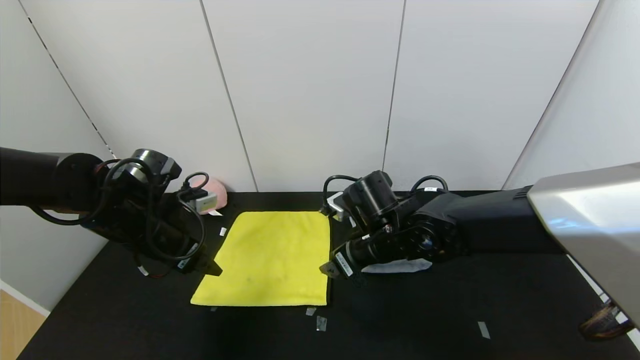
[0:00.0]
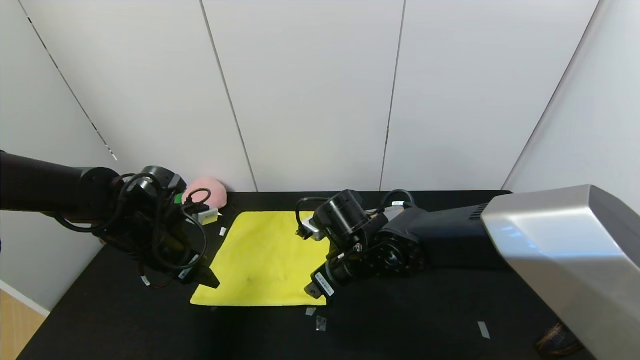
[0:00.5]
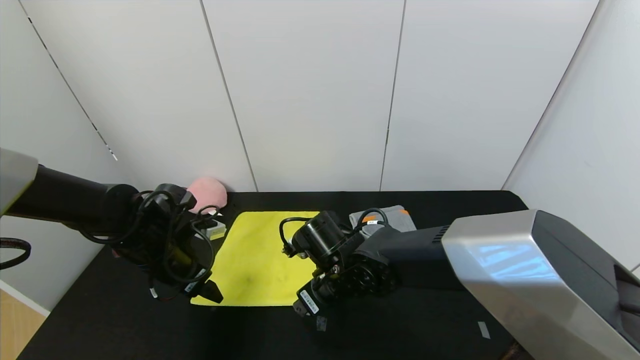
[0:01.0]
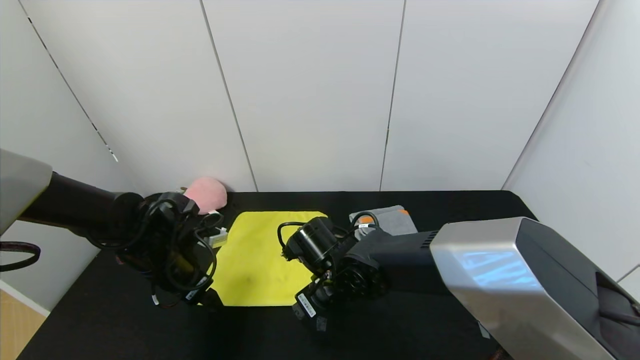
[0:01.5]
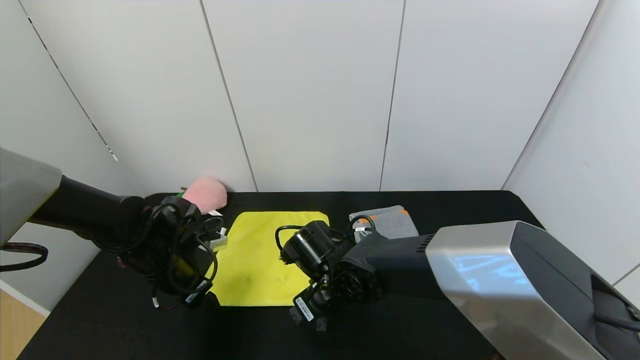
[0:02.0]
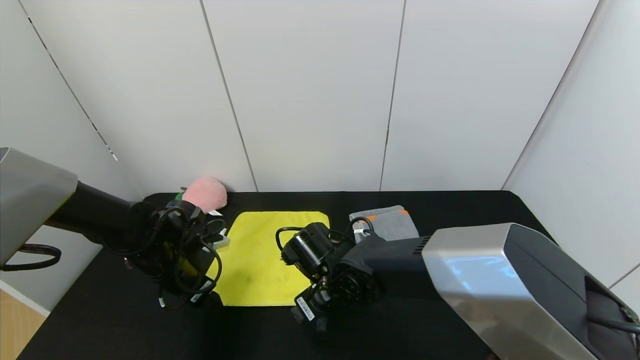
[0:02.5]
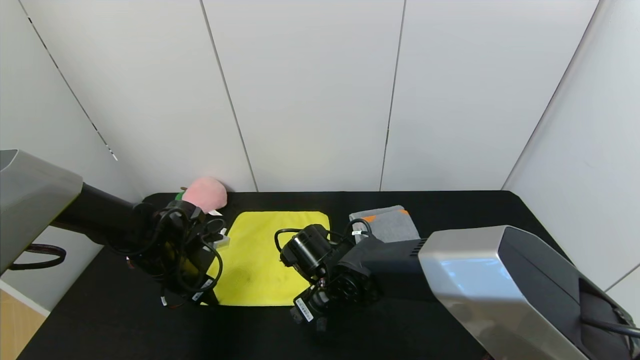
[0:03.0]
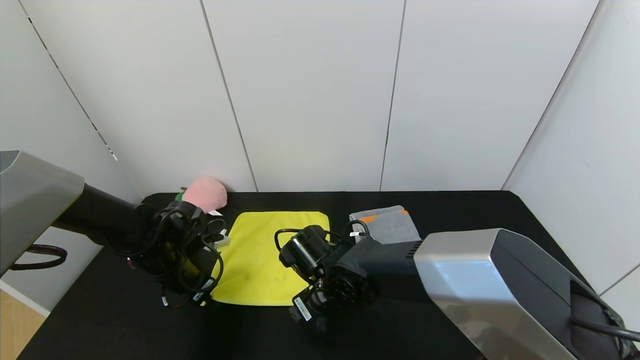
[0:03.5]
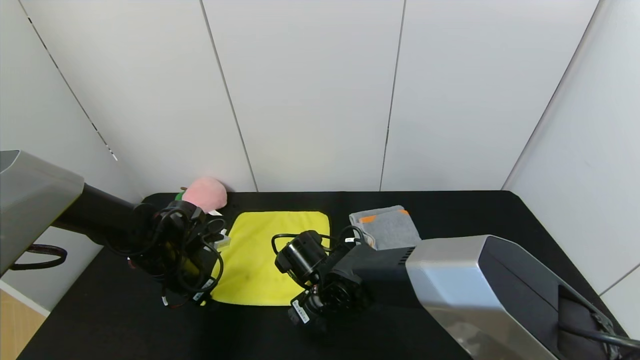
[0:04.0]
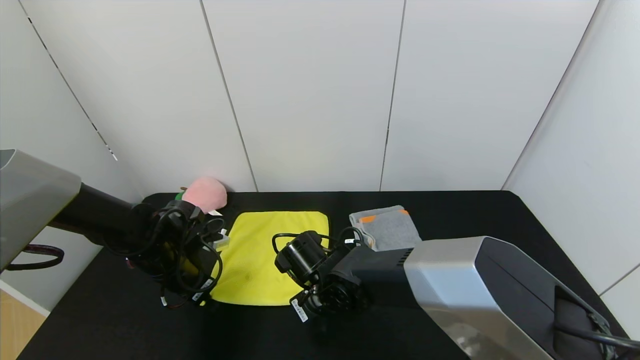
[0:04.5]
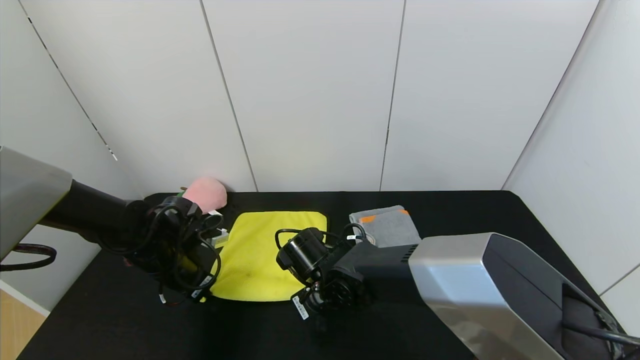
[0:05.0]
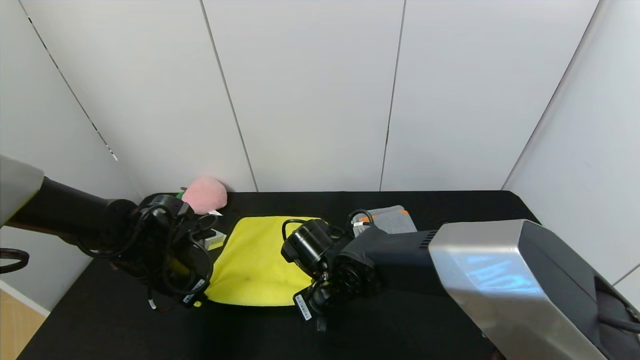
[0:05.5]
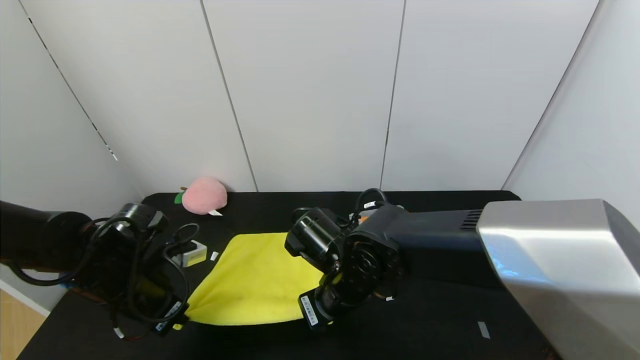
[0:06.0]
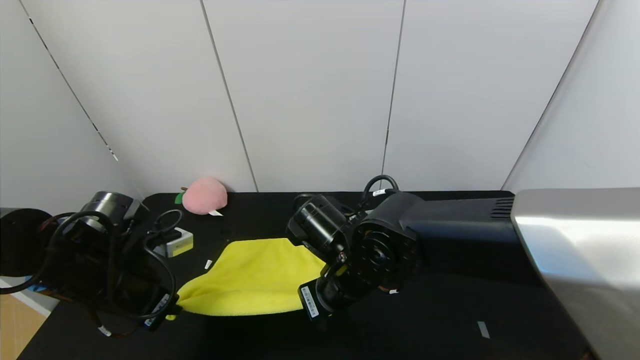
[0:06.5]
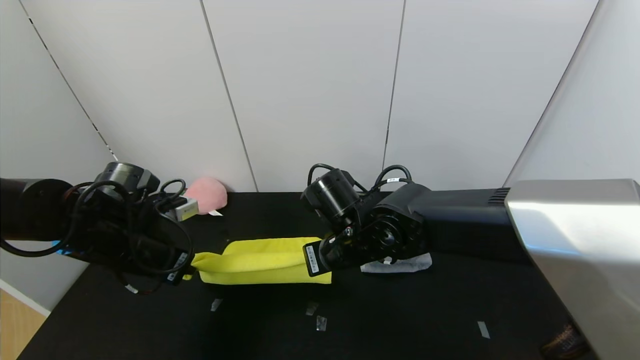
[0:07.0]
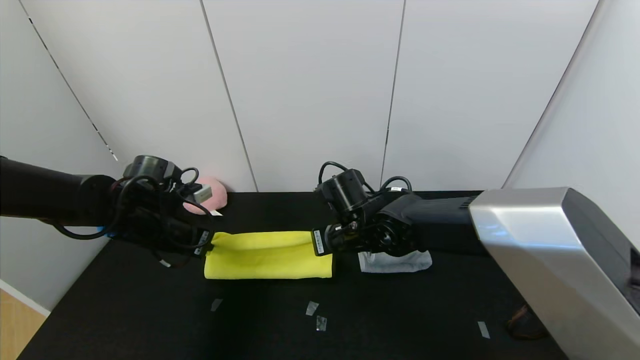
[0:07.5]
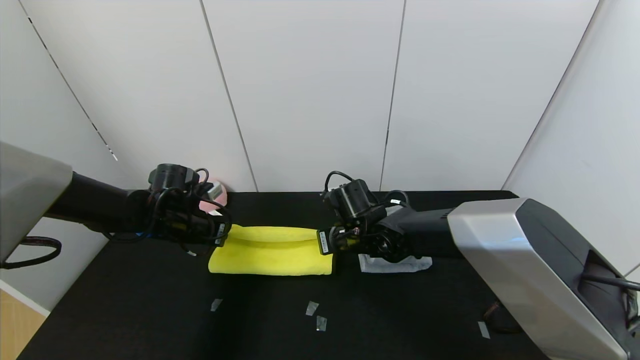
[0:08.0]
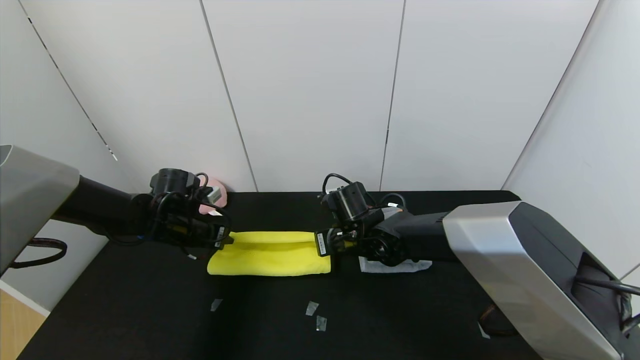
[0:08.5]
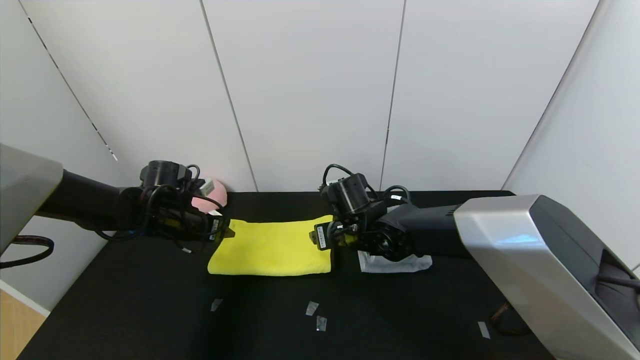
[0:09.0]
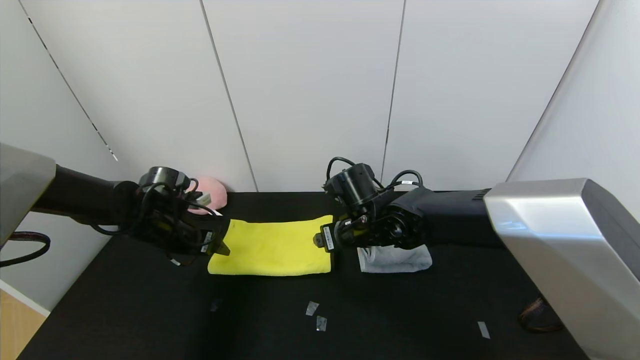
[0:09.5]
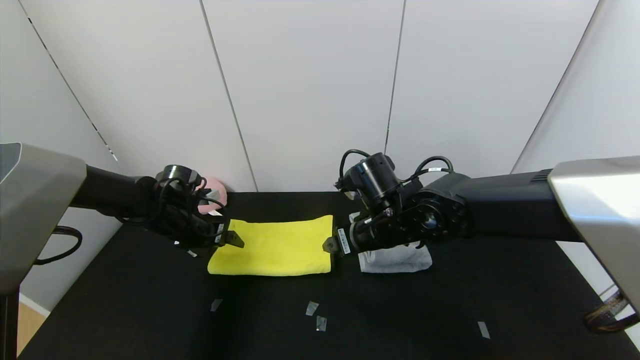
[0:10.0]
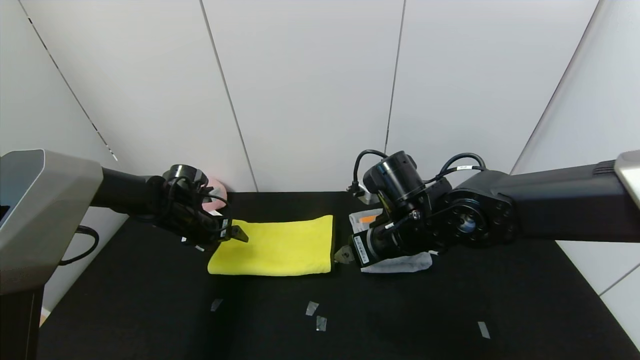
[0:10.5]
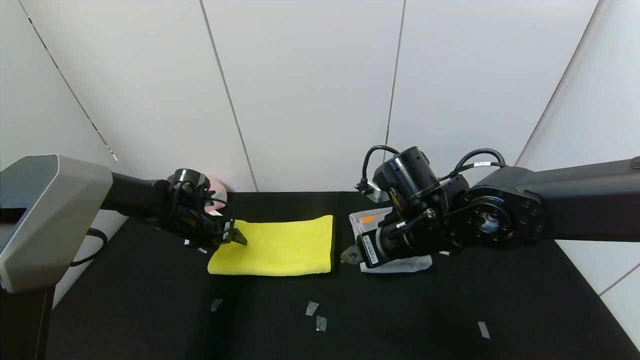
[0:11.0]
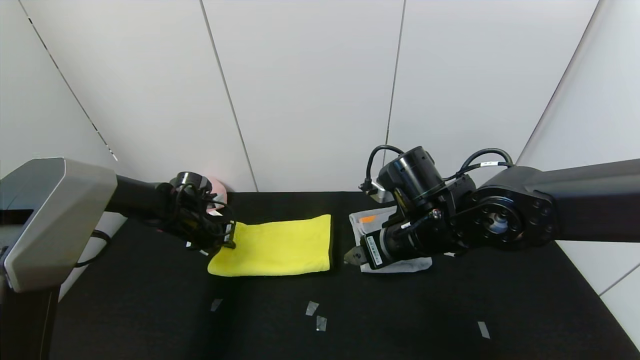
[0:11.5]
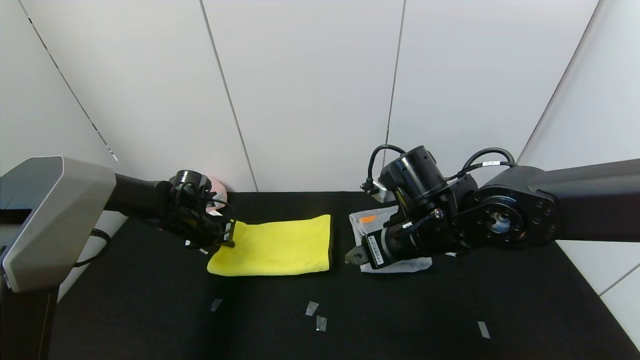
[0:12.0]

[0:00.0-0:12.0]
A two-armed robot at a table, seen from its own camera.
Task of the whole recording: Use the gripper to fold the yellow towel and grey towel in half twice,then put the yellow towel on the grey towel.
Step, 0:00.0 to 0:08.5: Fold the yellow towel upwards with the left gripper.
0:00.0 to 0:02.0: The right gripper moves to the left and downward, approximately 10 cm. Meanwhile the left gripper travels downward by about 10 cm.
0:02.0 to 0:04.0: The left gripper closes its fingers.
0:04.0 to 0:06.0: The right gripper travels upward by approximately 5 cm, and closes, while the left gripper goes about 10 cm backward.
0:06.0 to 0:08.0: The two grippers go approximately 15 cm forward.
0:08.0 to 0:10.0: The left gripper opens its fingers, while the right gripper goes approximately 10 cm upward and backward, and opens its fingers.
0:10.0 to 0:12.0: The right gripper moves some 5 cm. Meanwhile the left gripper closes up.

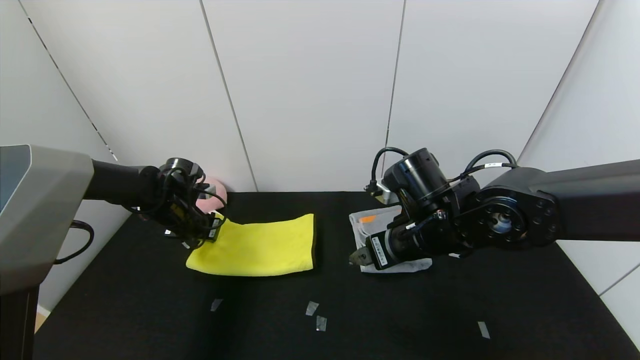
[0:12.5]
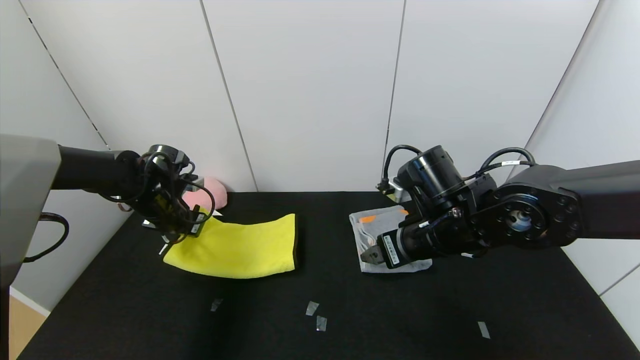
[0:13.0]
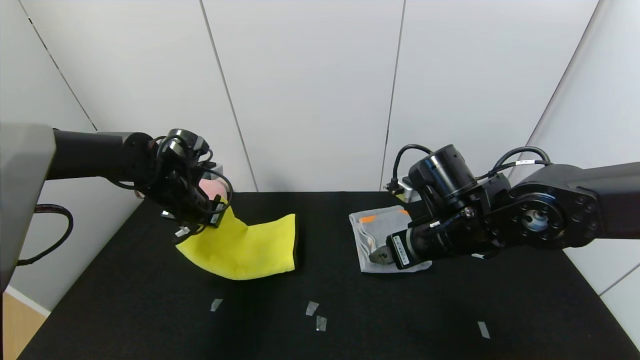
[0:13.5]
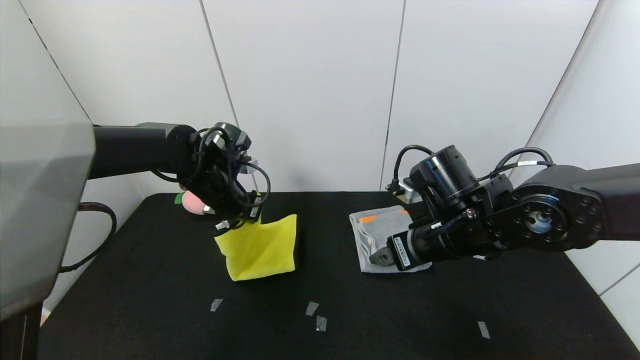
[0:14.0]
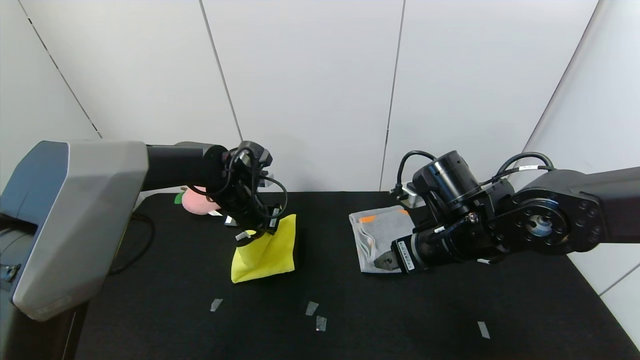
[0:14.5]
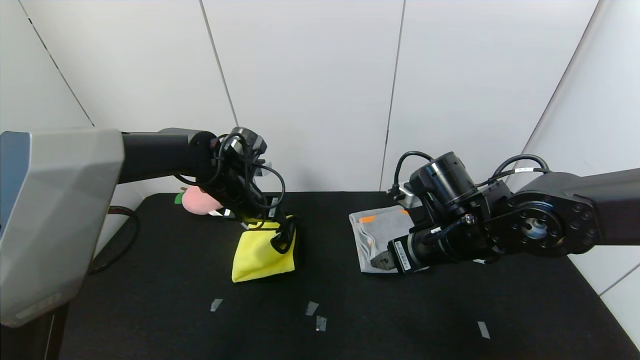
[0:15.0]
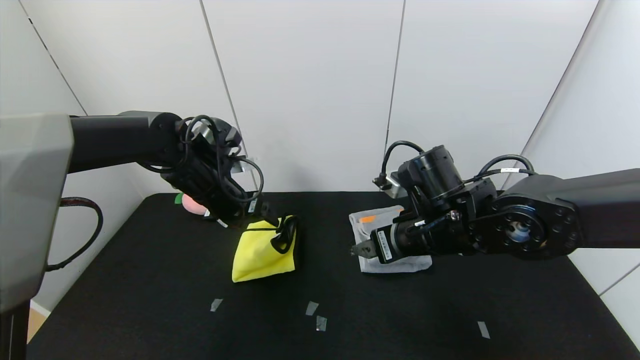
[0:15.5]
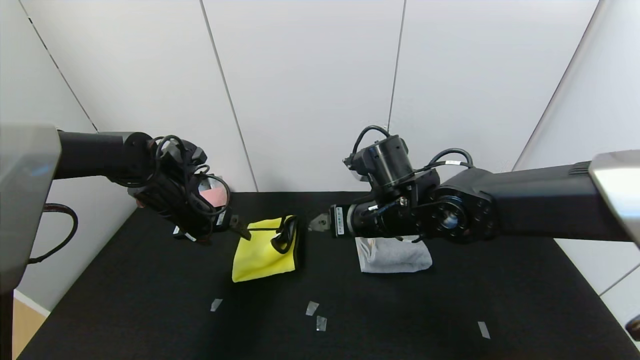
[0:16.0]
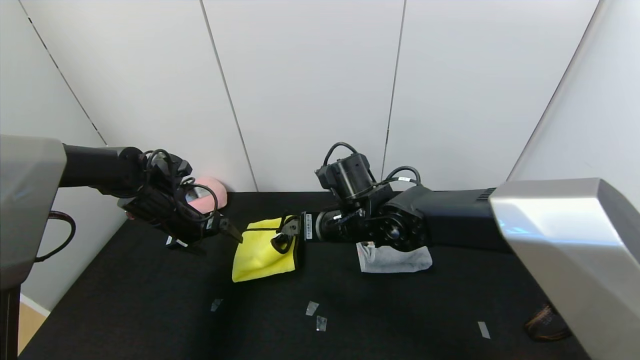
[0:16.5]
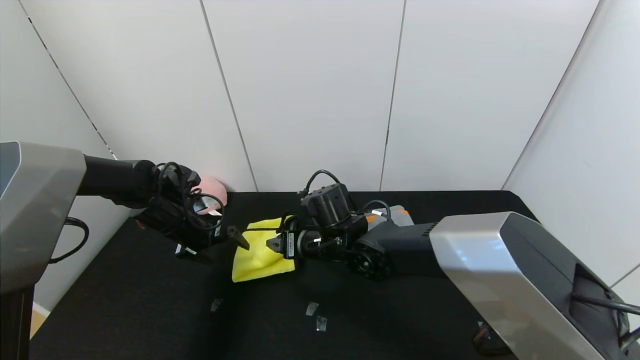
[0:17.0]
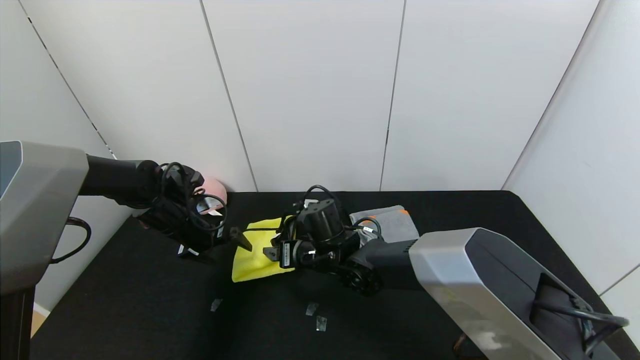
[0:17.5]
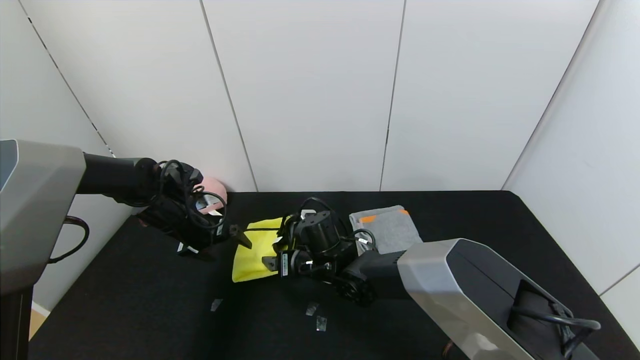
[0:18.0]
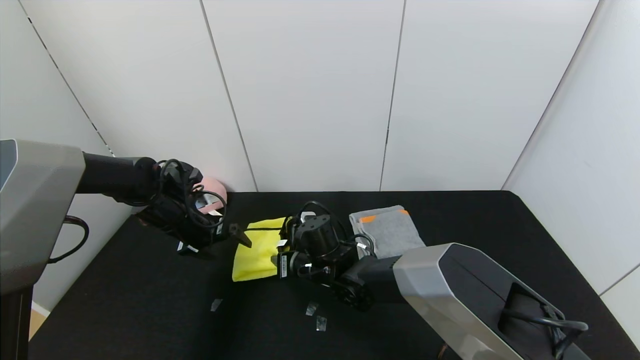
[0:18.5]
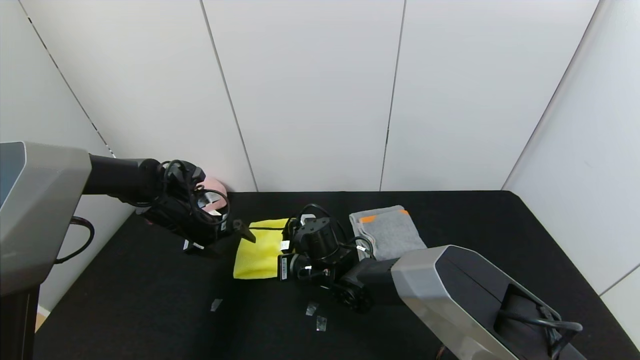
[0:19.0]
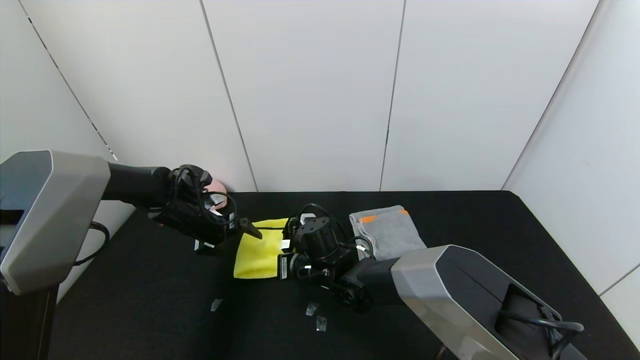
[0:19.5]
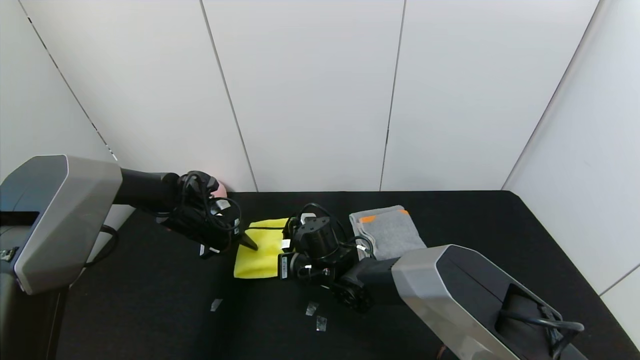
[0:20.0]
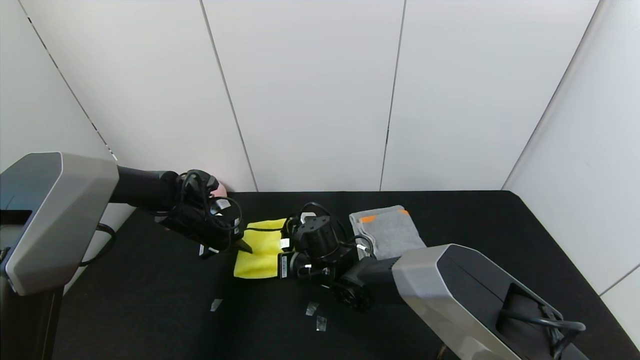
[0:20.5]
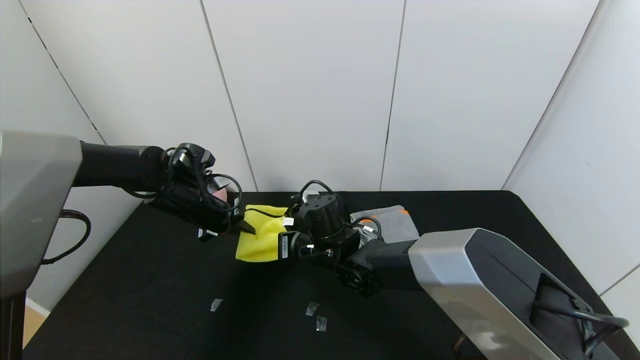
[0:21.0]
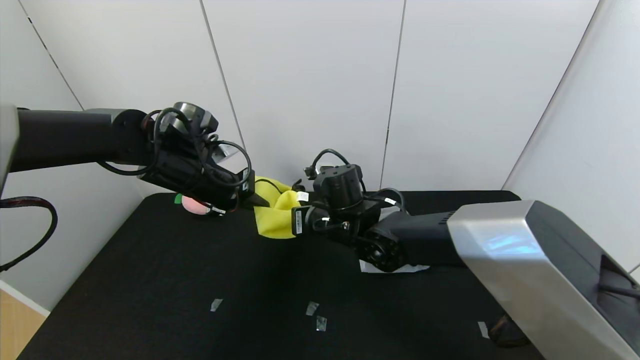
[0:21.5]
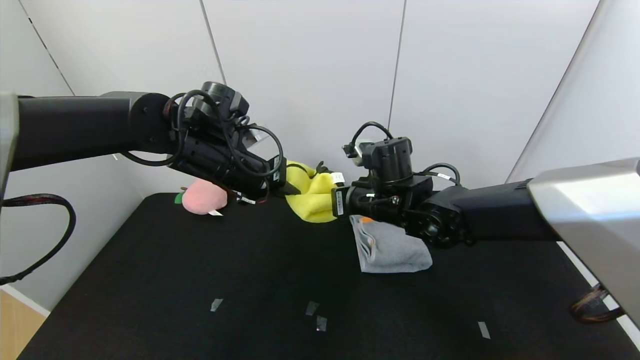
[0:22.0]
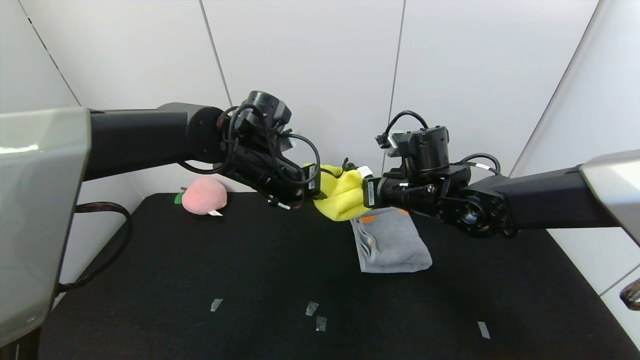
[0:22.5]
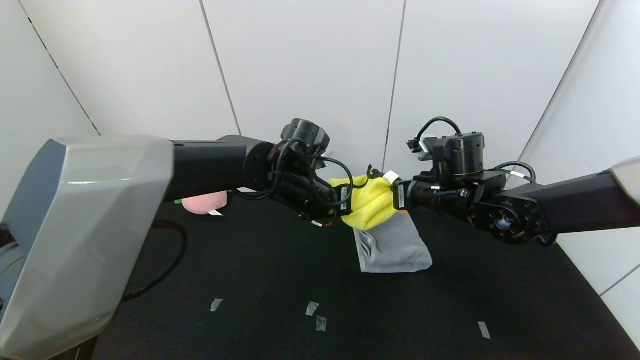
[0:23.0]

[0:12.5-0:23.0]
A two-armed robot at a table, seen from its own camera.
Task of the whole recording: Use the gripper to fold the yellow towel and grey towel in half twice,then put the yellow towel on the grey towel.
Step, 0:12.5 to 0:15.0: Fold the yellow towel from left to right with left gripper.
0:12.5 to 0:14.5: The left gripper travels to the right by approximately 15 cm.
0:14.5 to 0:16.5: The right gripper is displaced to the left and forward by some 15 cm; the left gripper heads to the left, covering approximately 15 cm, and opens up.
0:16.5 to 0:19.0: The right gripper shifts about 15 cm downward and to the left, and closes.
0:19.0 to 0:21.0: The right gripper travels upward by approximately 5 cm; the left gripper ends up about 5 cm from where it was, and closes its fingers.
0:21.0 to 0:23.0: The right gripper is displaced to the right and upward by roughly 25 cm; the left gripper is displaced to the right by about 20 cm.
